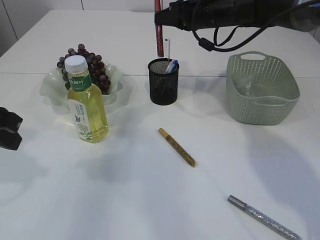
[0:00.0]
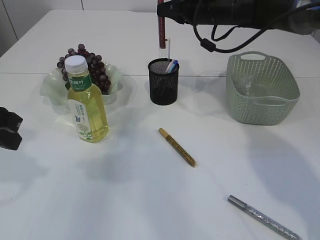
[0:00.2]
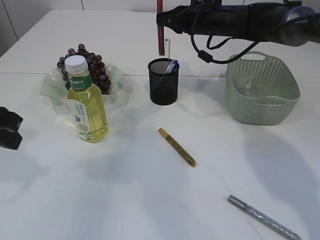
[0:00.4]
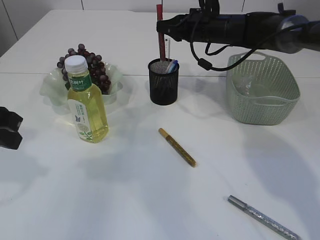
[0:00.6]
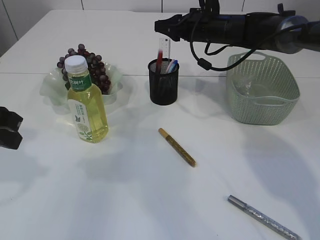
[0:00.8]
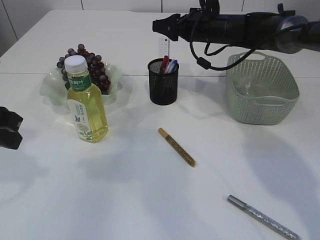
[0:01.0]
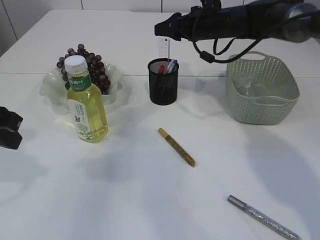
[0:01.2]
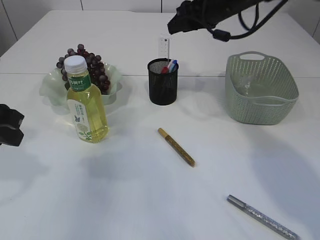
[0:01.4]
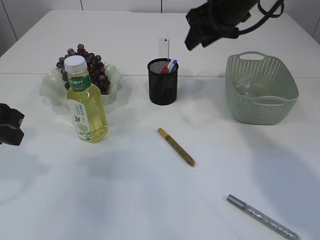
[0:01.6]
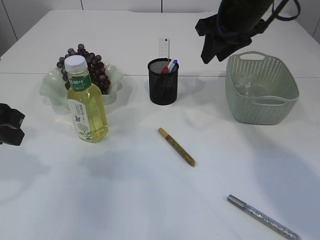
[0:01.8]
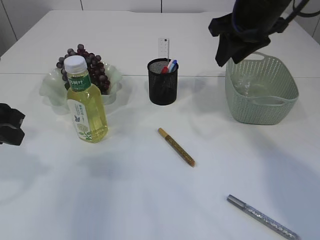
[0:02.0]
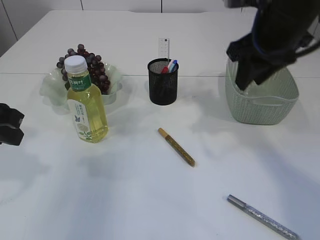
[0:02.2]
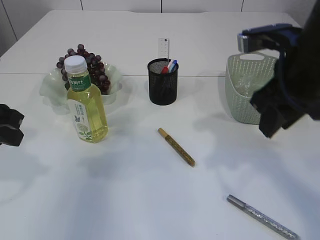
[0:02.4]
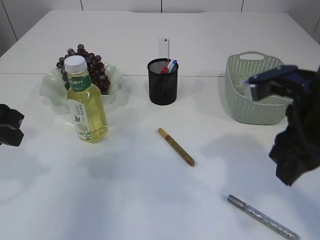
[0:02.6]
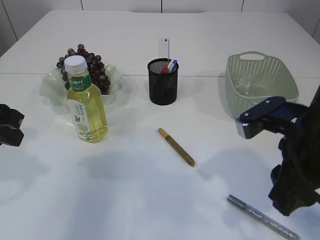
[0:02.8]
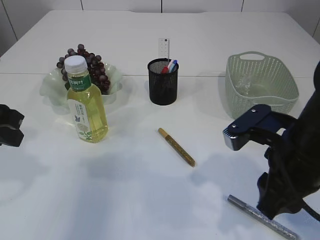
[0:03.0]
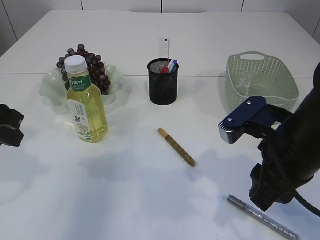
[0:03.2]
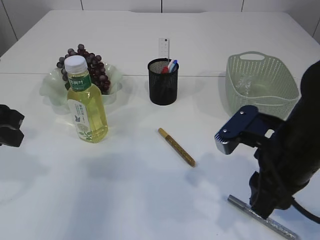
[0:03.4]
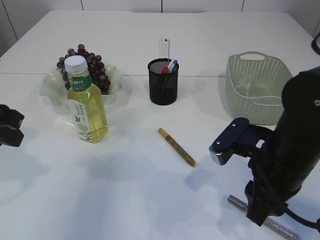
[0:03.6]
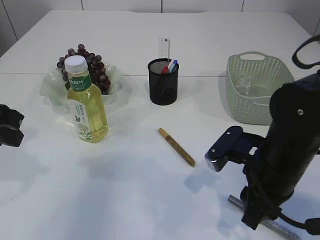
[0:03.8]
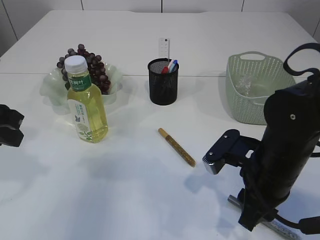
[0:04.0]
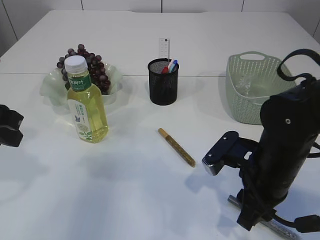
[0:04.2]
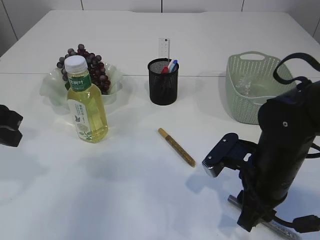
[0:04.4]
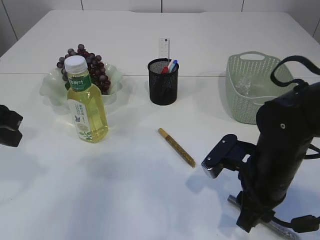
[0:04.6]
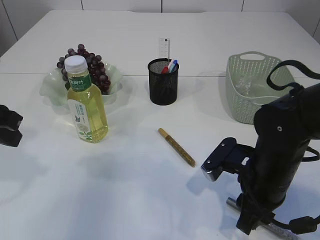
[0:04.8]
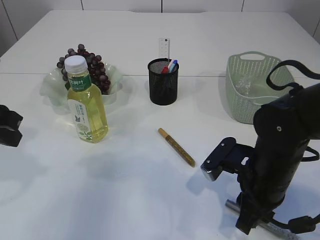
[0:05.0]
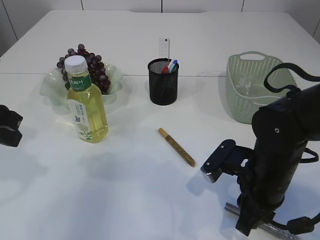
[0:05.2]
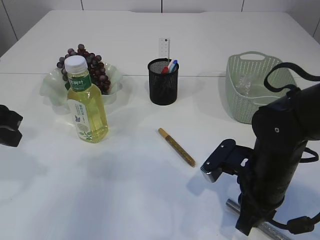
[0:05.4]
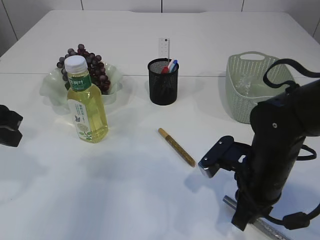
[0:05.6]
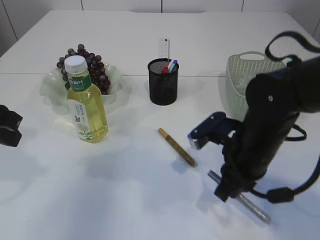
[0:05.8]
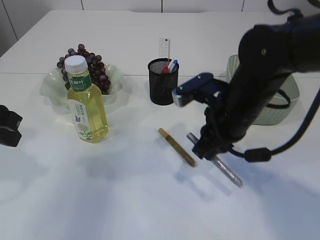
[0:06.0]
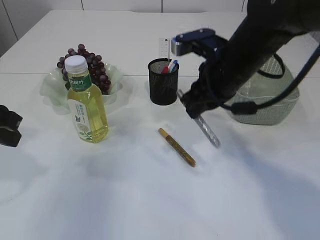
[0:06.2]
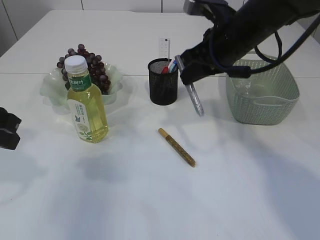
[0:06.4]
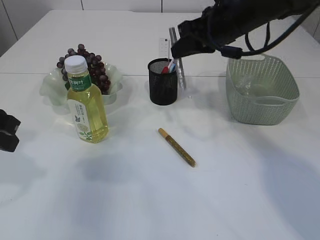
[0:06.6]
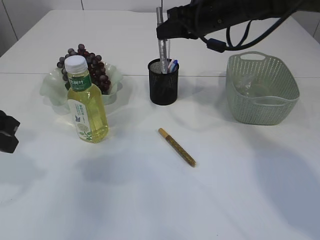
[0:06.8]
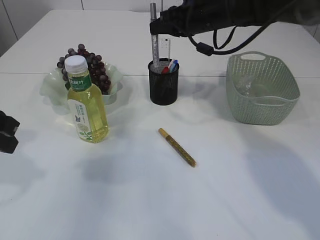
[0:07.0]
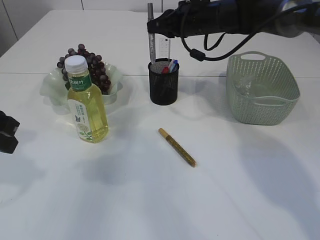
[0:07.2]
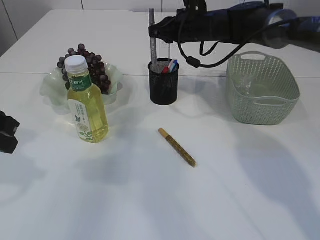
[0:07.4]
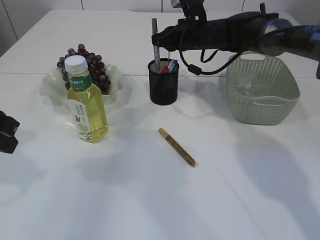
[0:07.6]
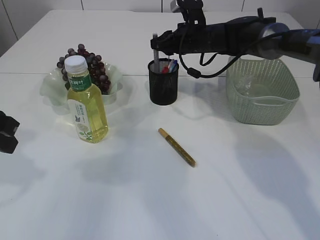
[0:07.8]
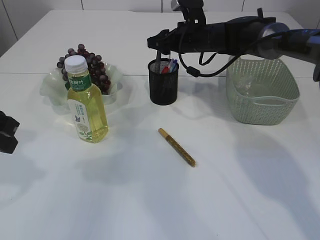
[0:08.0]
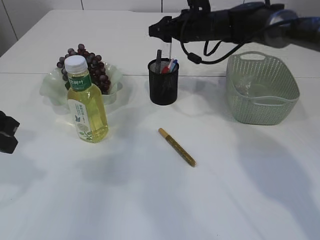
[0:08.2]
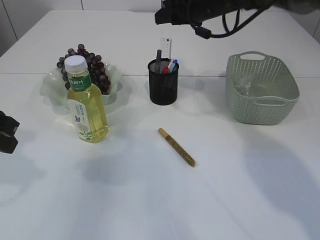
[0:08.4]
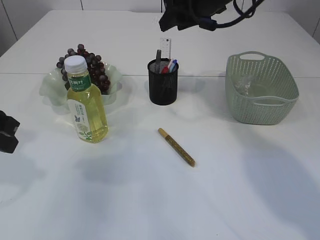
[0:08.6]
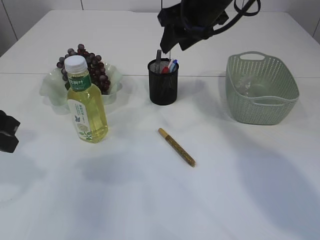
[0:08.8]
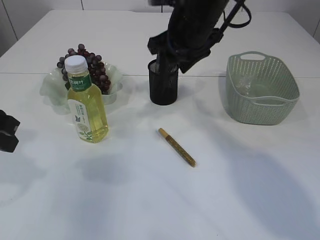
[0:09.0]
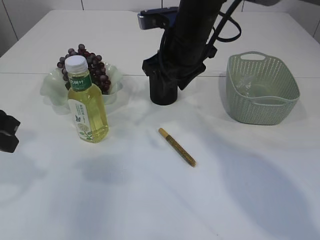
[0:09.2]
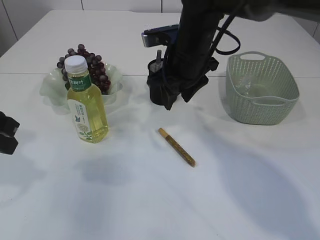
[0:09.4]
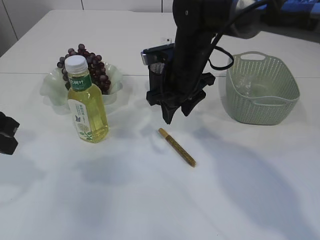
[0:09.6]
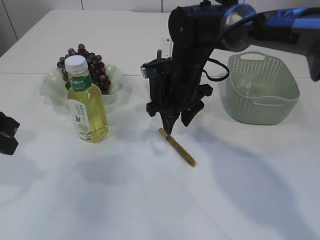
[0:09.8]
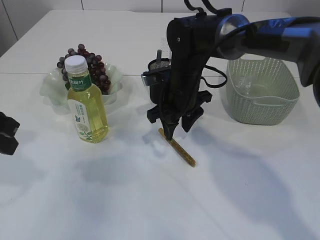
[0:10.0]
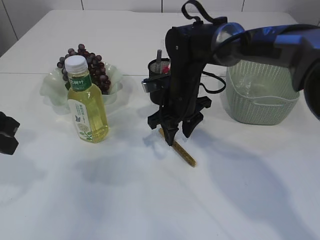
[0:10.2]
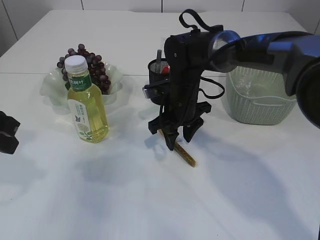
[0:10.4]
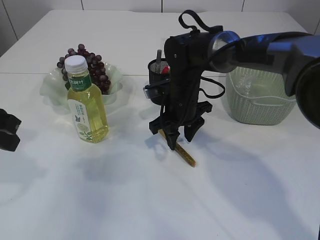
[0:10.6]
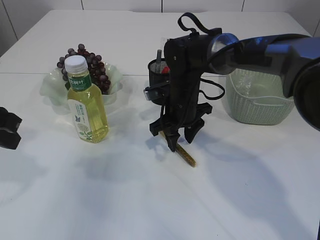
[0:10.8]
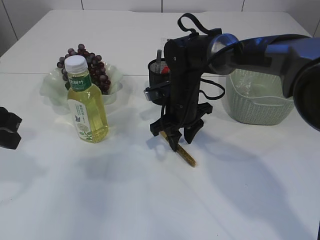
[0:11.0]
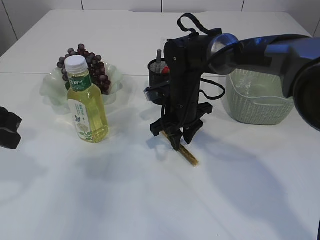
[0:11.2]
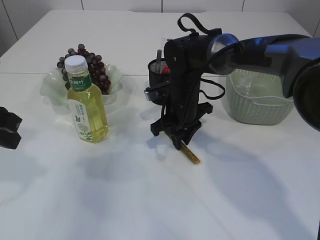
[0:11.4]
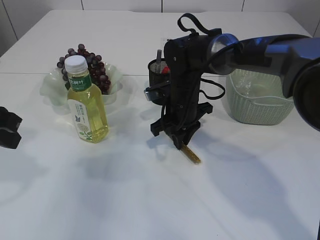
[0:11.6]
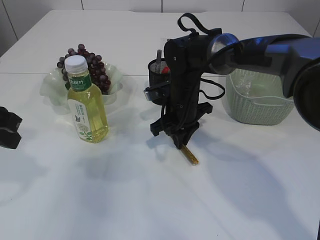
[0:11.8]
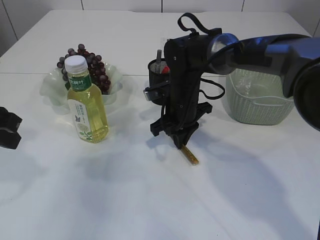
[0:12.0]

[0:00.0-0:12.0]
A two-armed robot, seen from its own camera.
Step, 0:00.0 to 0:01.4: place the red glue into the pen holder.
Step, 0:01.6 to 0:05.8: pick up the silver glue.
Step, 0:06.0 to 0:08.6: place the silver glue into the pen holder.
0:00.0 to 0:01.6: The right gripper moves backward, approximately 5 cm, and opens.
0:01.6 to 0:03.0: The right gripper moves backward and downward, some 25 cm.
0:03.0 to 0:04.4: The right gripper travels downward by approximately 10 cm.
0:04.4 to 0:06.0: The right gripper is displaced upward and forward by approximately 10 cm, and closes its fingers.
0:06.0 to 0:07.6: The right gripper shifts approximately 25 cm forward.
0:07.6 to 0:09.0: The right gripper heads backward and upward, covering approximately 15 cm, and opens its fingers.
0:09.0 to 0:10.4: The right gripper heads downward, covering some 15 cm.
0:10.4 to 0:12.0: The right gripper closes.

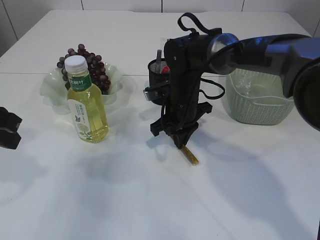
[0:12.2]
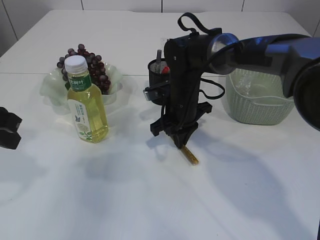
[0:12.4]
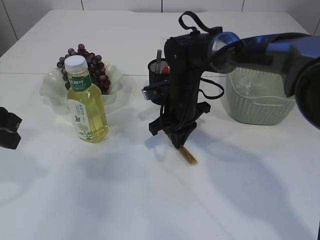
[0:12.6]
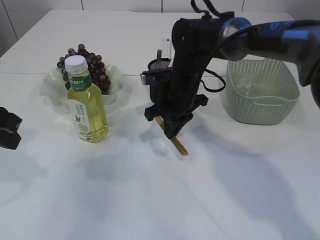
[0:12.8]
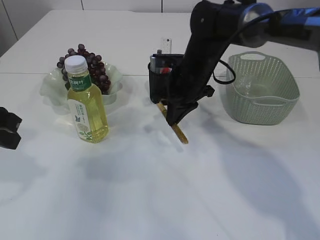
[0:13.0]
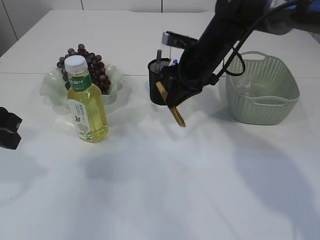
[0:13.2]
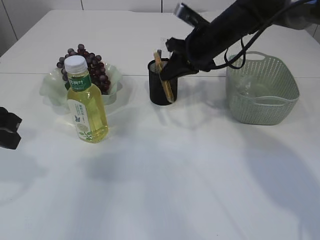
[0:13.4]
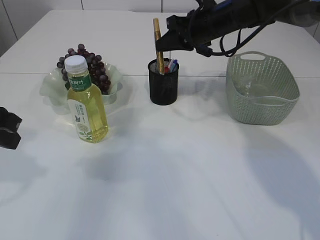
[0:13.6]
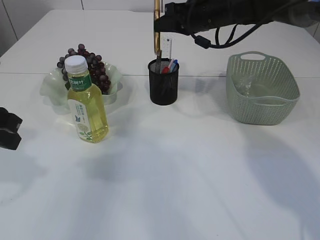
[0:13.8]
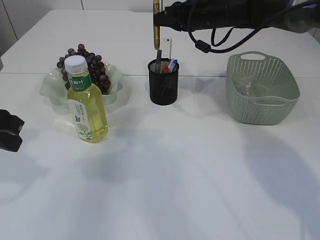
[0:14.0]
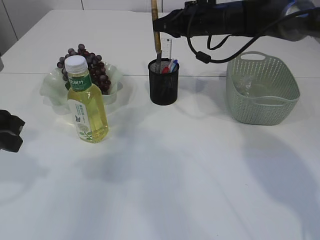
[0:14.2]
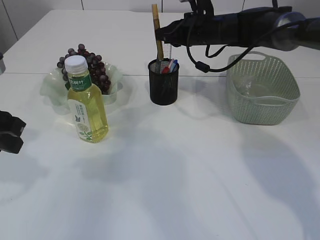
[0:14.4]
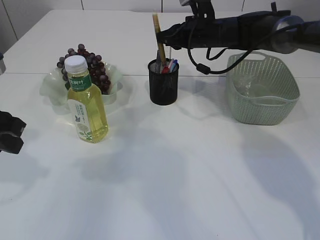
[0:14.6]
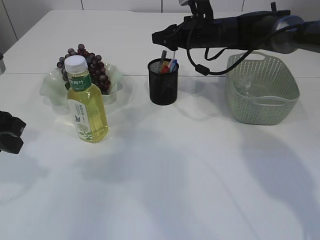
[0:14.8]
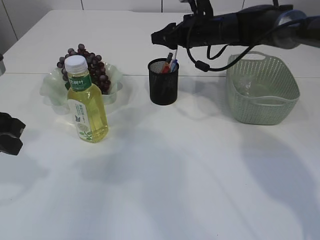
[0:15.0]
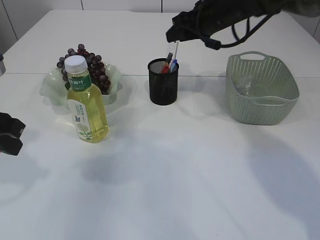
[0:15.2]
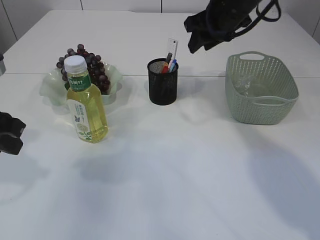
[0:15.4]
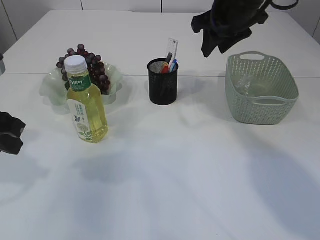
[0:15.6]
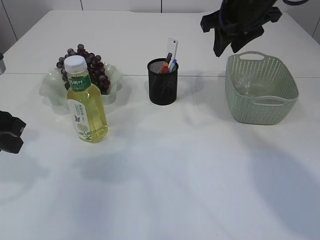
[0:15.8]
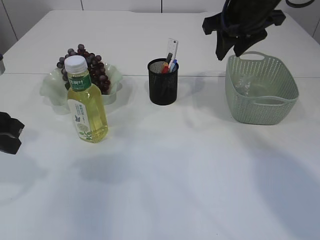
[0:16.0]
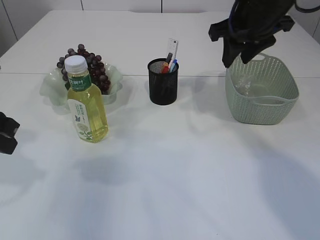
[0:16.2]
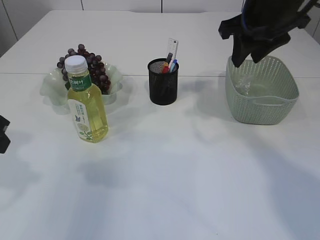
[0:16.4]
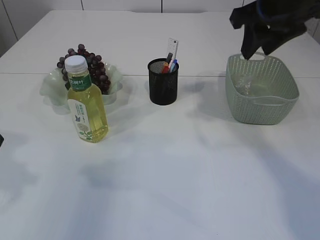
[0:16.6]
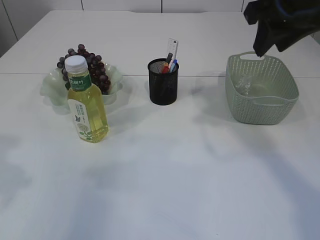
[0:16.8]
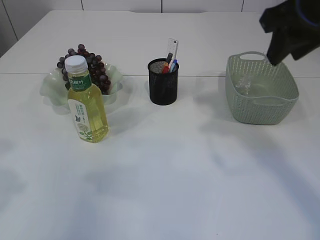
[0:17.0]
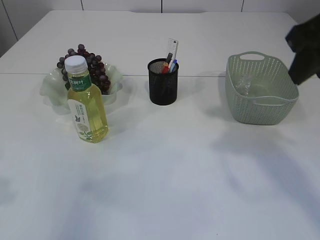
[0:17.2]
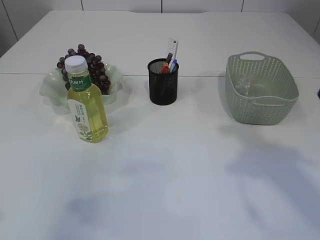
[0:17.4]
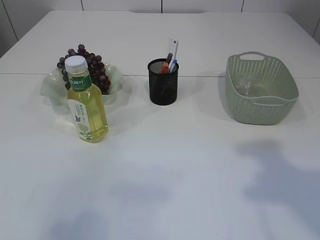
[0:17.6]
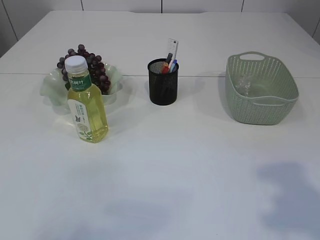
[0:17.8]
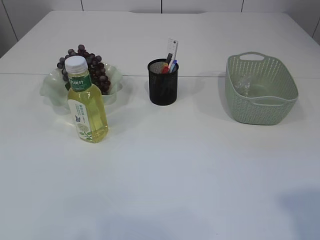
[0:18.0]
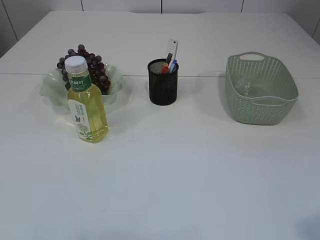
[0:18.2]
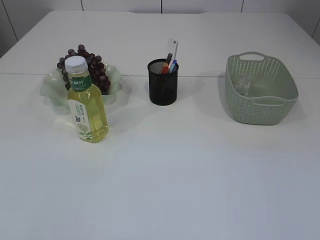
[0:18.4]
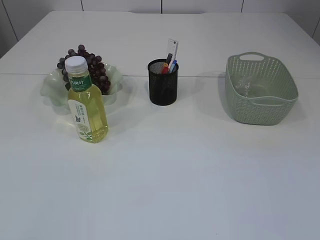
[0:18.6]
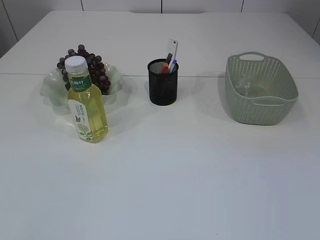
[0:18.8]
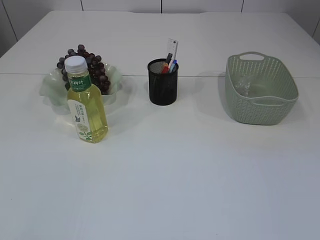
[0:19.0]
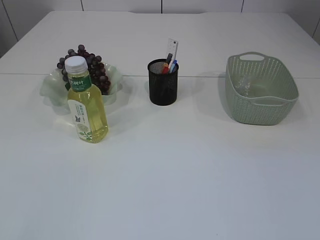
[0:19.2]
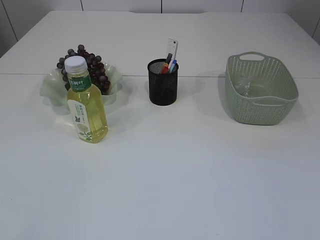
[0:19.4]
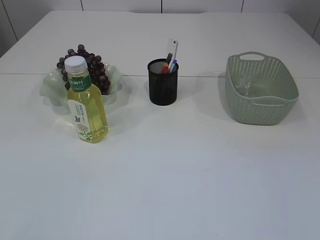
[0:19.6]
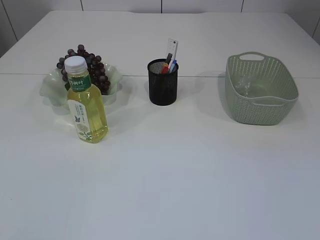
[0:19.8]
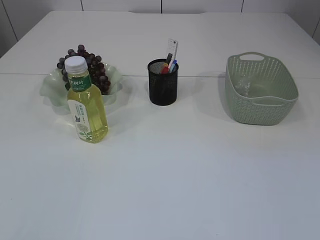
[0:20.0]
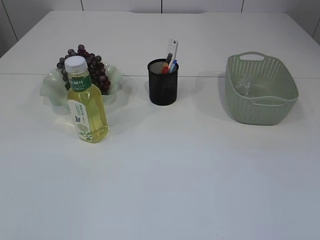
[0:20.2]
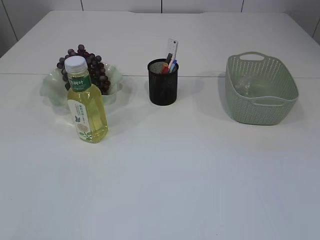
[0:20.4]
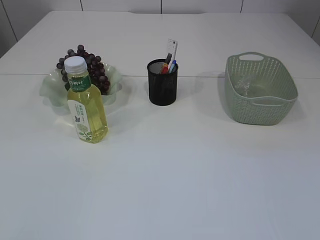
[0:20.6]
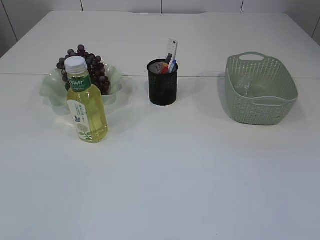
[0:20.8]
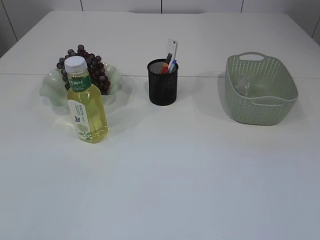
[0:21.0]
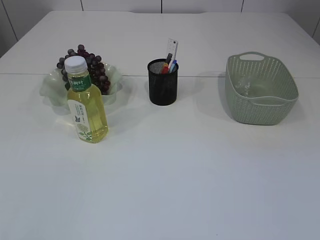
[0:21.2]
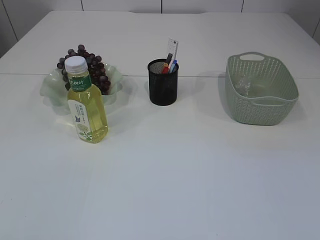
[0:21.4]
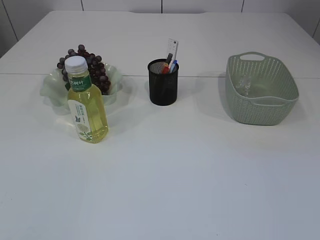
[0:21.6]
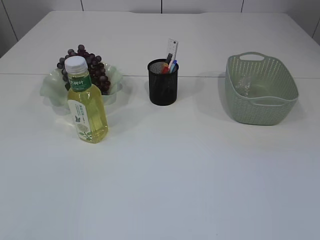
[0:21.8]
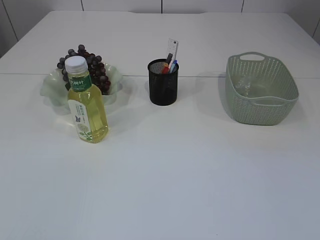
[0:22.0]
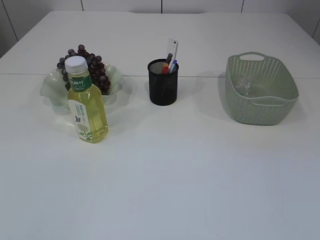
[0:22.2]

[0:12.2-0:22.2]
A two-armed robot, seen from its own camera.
Step, 0:13.4 to 0:15.4: place the yellow glue into the pen holder.
0:12.2 to 0:13.6: The right gripper heads upward, to the right and forward, covering about 15 cm.
0:13.6 to 0:15.0: The right gripper opens.
0:15.0 to 0:16.4: The right gripper is displaced backward and upward by roughly 20 cm.
0:16.4 to 0:18.0: The left gripper goes about 20 cm backward. Meanwhile the right gripper is displaced backward by some 30 cm.
